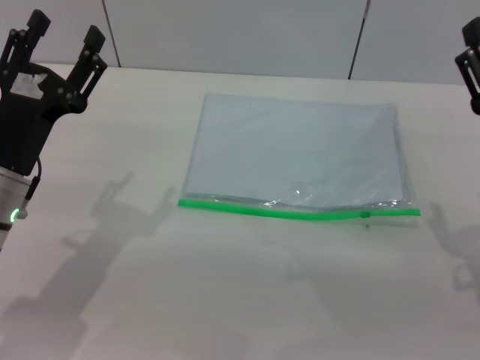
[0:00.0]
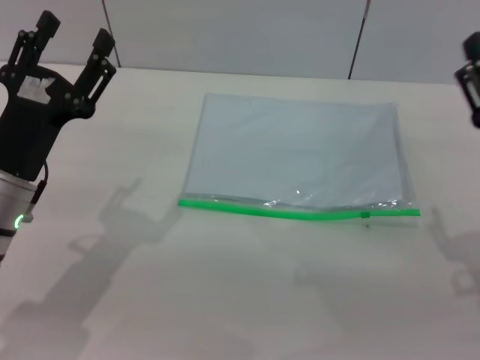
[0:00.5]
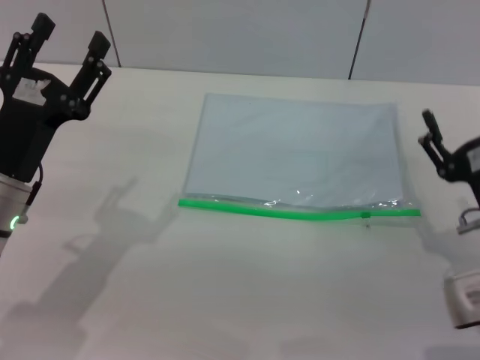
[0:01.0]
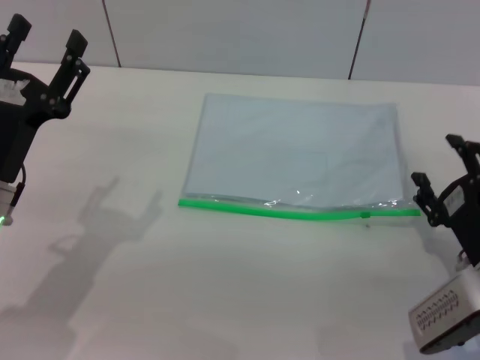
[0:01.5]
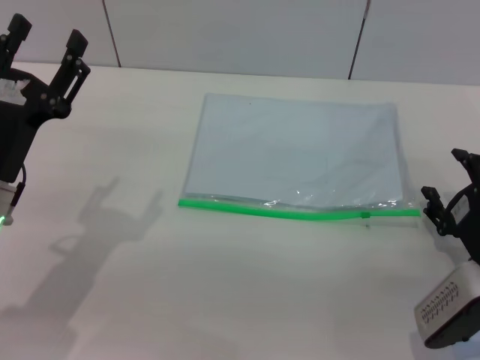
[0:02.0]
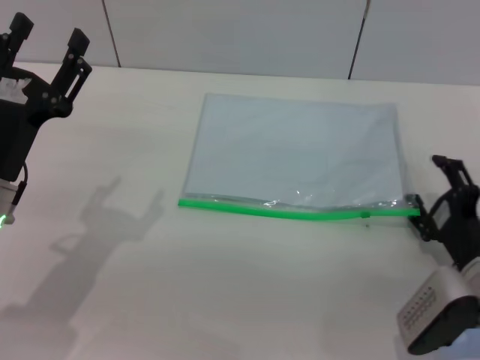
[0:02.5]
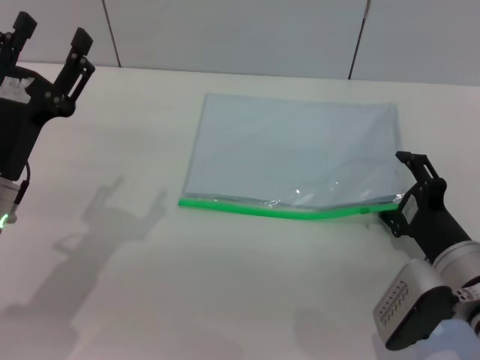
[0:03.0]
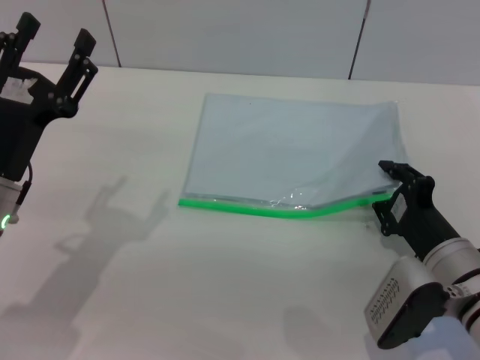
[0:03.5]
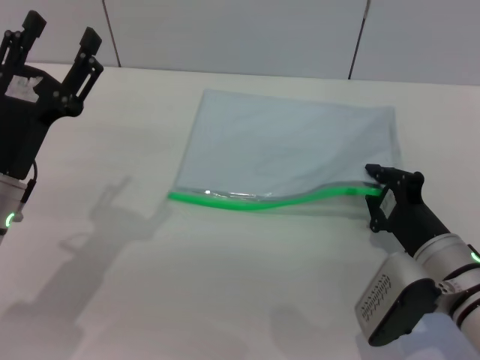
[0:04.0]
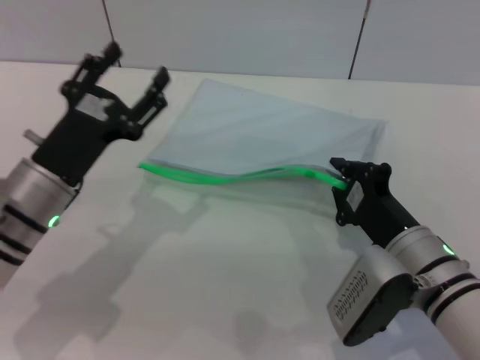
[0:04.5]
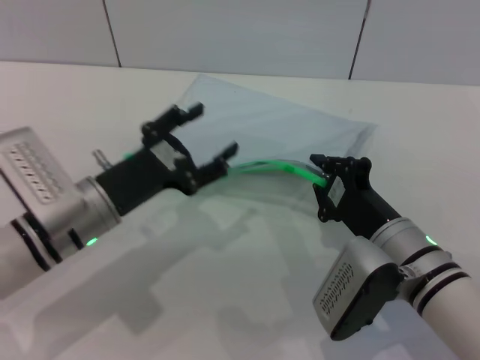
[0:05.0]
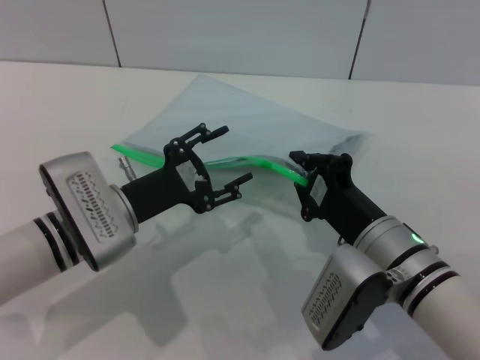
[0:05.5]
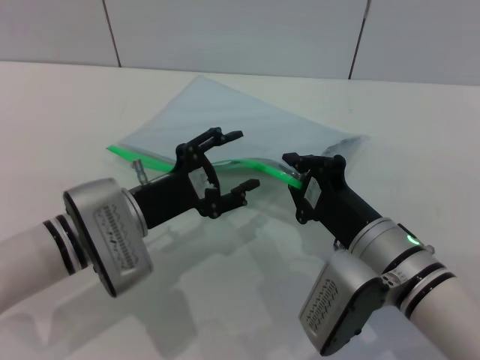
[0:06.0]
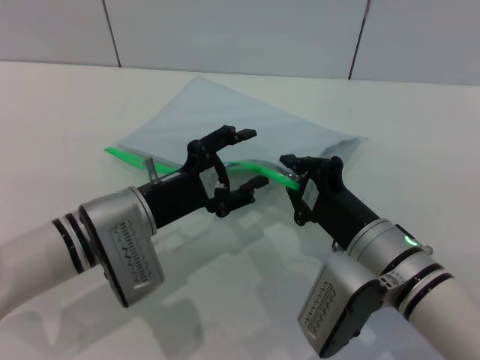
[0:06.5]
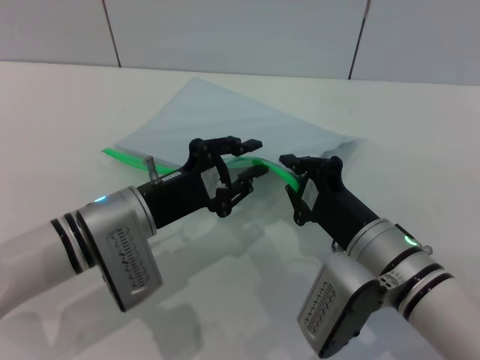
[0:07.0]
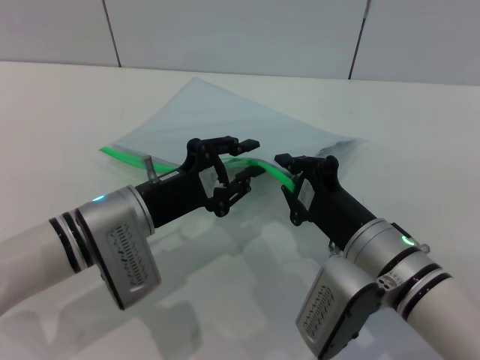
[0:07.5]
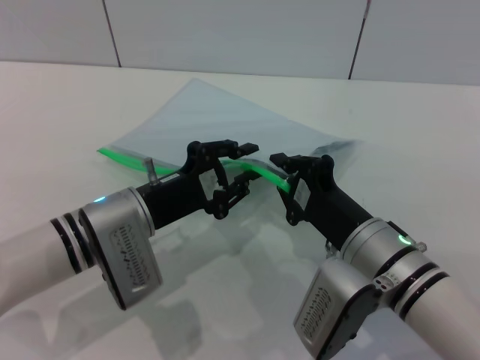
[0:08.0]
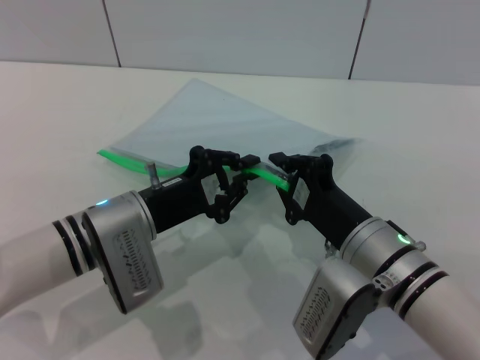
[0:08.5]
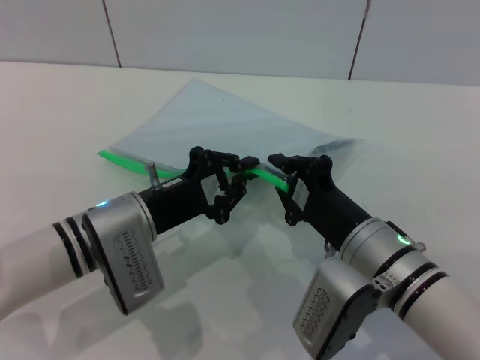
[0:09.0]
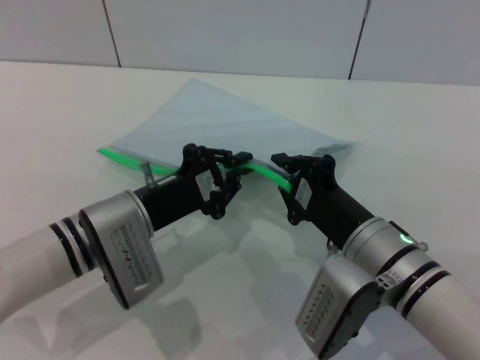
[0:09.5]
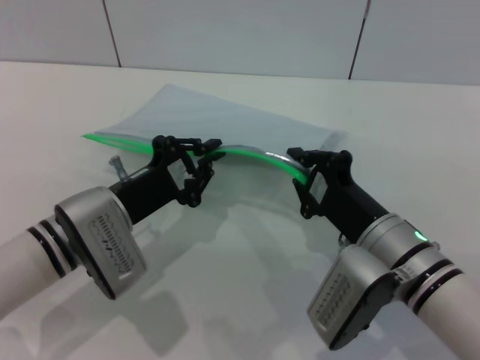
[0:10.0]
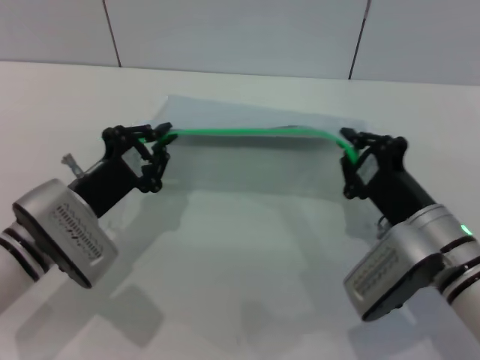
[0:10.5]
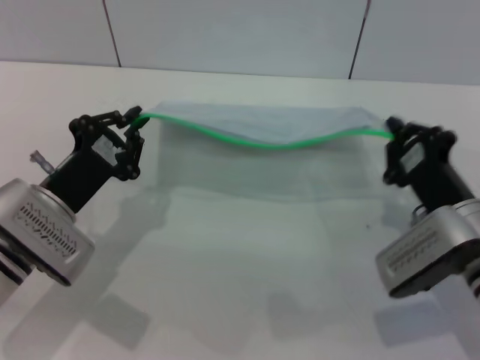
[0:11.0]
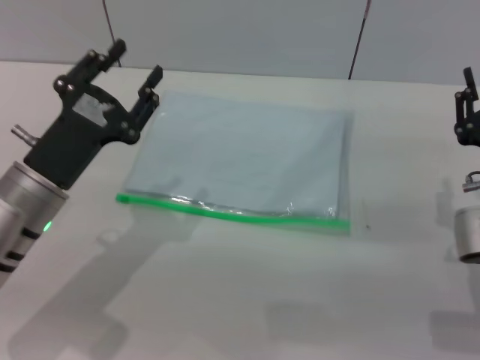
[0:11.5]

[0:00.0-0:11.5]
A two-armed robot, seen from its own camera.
Step, 0:00.0 to 0:05.0: Pick up the transparent plastic bag with the right gripper.
Step, 0:05.5 to 0:11.0: Pulling up the zipper on the transparent plastic bag with the left gripper to close it.
0:00.0 to 0:02.0: The right gripper goes some 10 cm downward.
0:02.0 to 0:04.0: The right gripper is displaced to the left by some 5 cm, and closes.
0:04.0 to 0:06.0: The right gripper moves to the left, approximately 5 cm. Meanwhile the left gripper goes some 5 cm to the right.
0:06.0 to 0:07.5: The left gripper closes up.
0:07.5 to 0:09.5: Neither gripper changes place.
0:09.5 to 0:11.5: The left gripper goes approximately 5 cm to the left, and opens up. Meanwhile the right gripper moves to the right, some 10 cm.

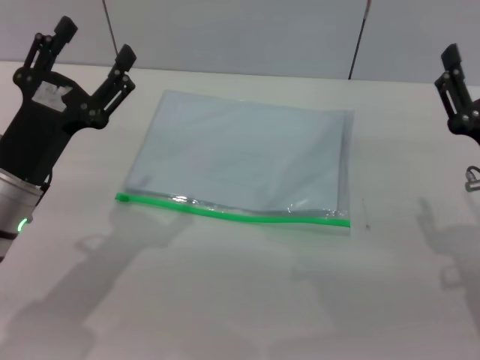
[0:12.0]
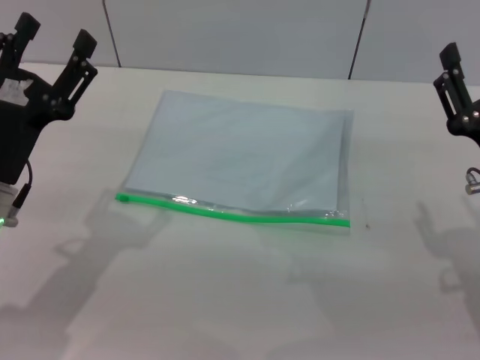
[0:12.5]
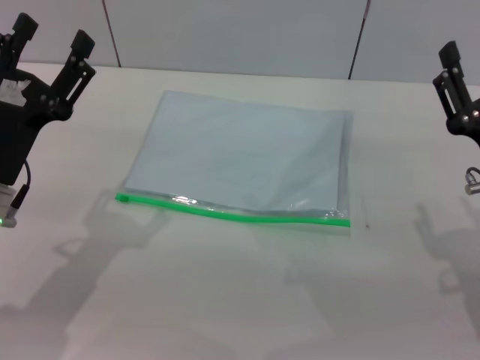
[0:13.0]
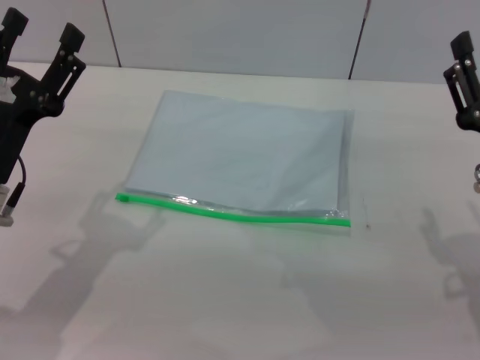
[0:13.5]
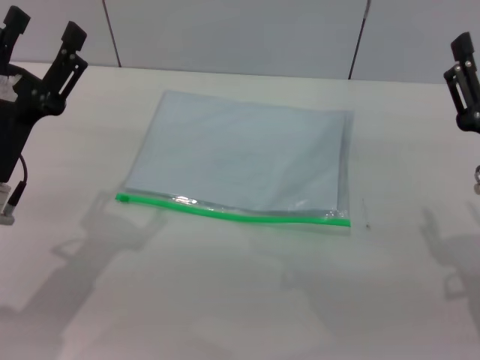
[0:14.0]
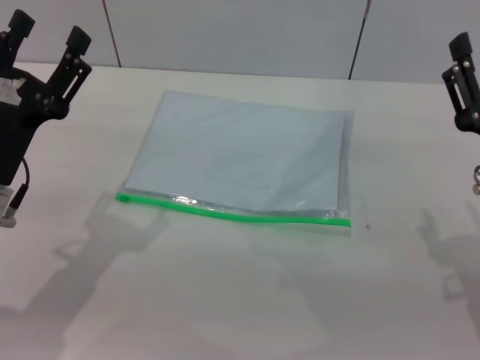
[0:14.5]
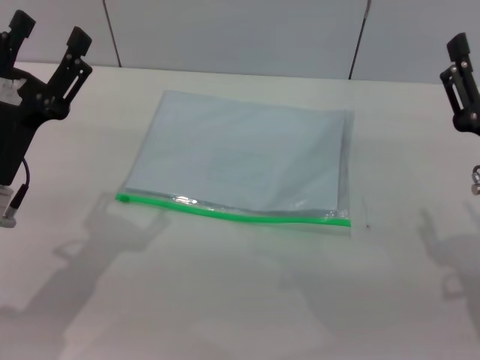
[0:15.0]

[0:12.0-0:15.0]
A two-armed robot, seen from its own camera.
0:12.0 to 0:13.5: The grippers make only small movements.
0:13.5 to 0:15.0: Both grippers stay about where they are.
